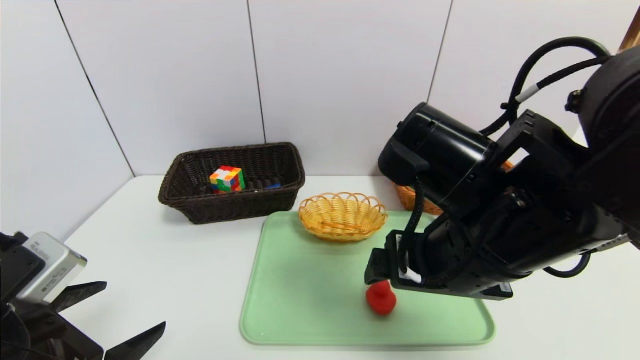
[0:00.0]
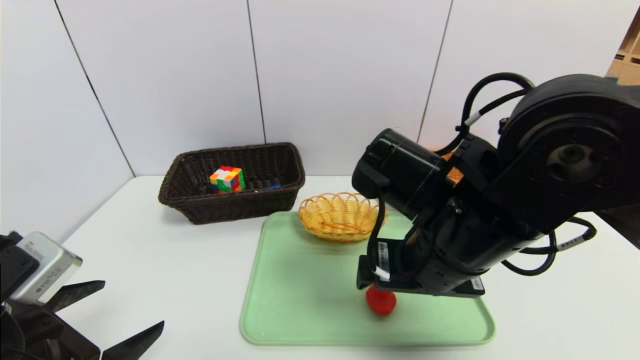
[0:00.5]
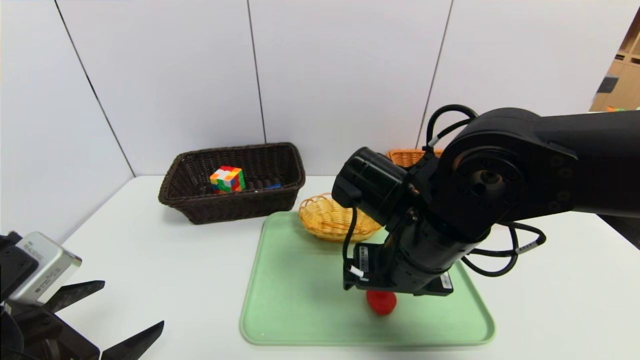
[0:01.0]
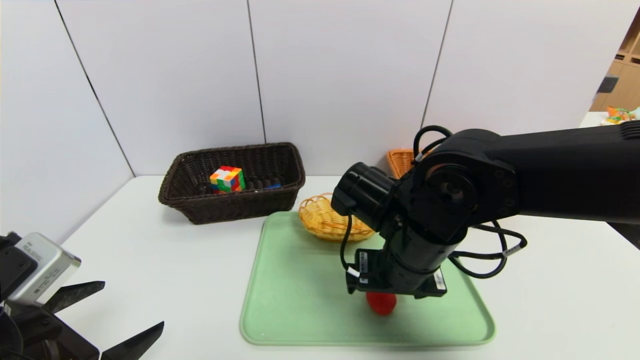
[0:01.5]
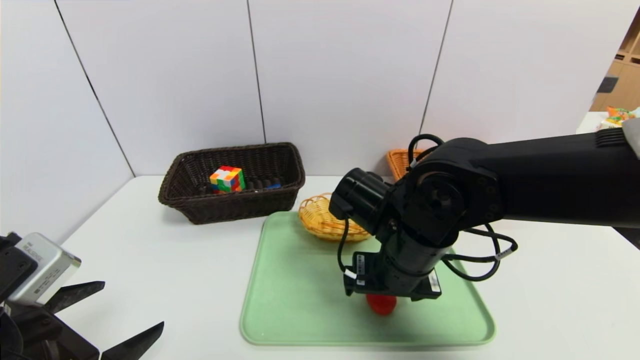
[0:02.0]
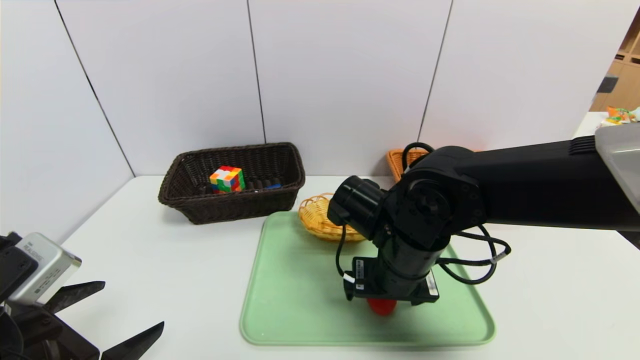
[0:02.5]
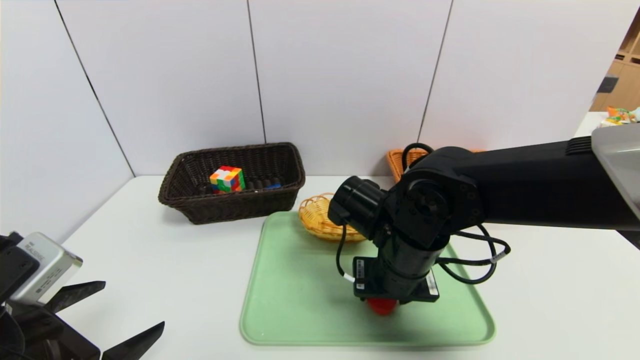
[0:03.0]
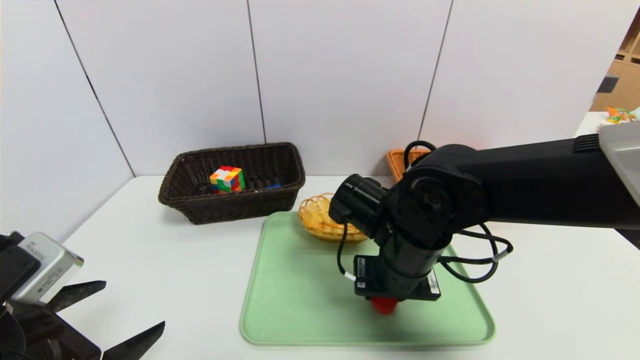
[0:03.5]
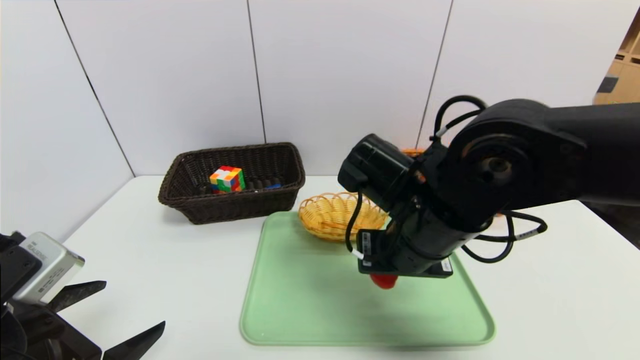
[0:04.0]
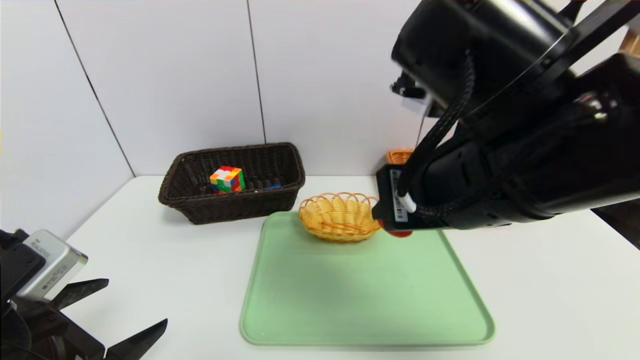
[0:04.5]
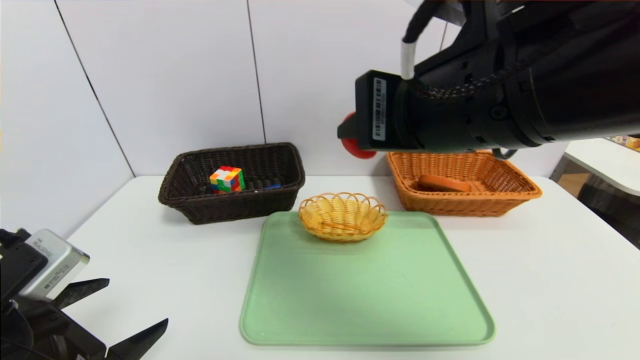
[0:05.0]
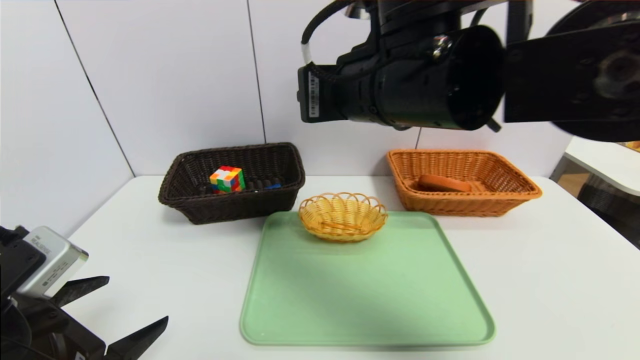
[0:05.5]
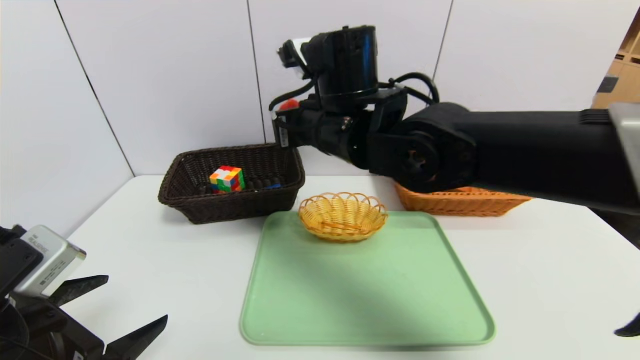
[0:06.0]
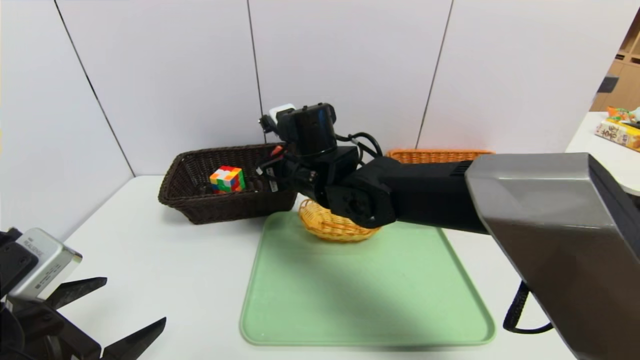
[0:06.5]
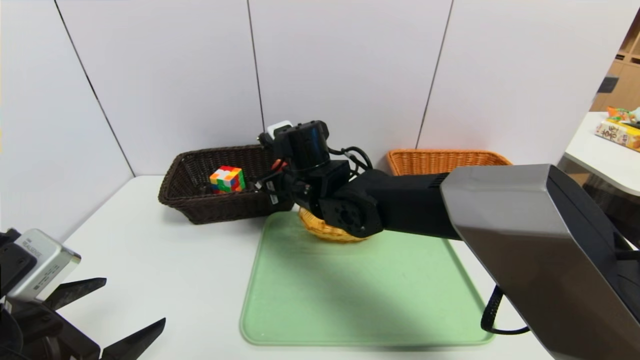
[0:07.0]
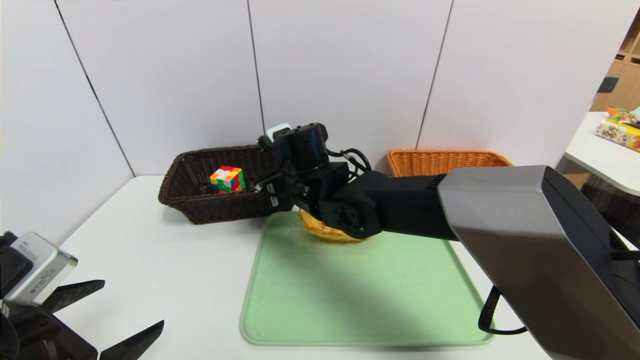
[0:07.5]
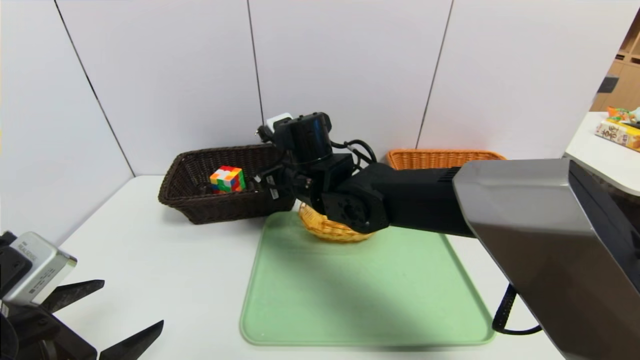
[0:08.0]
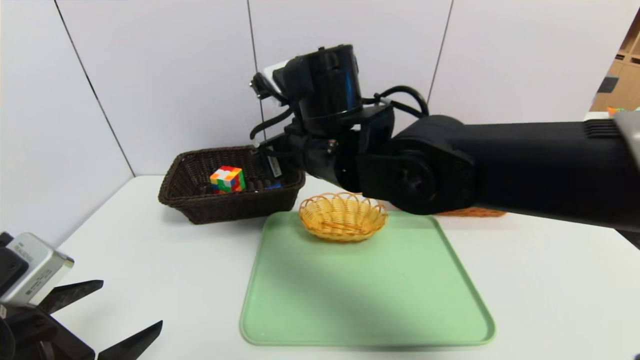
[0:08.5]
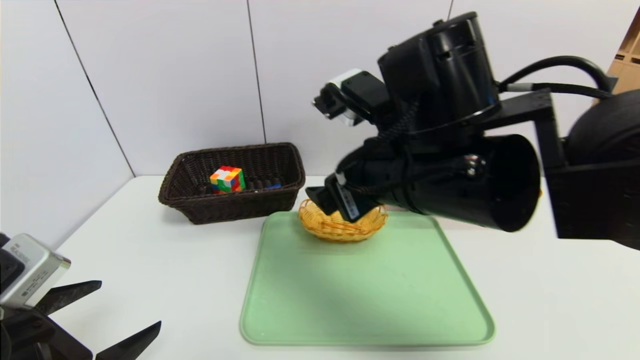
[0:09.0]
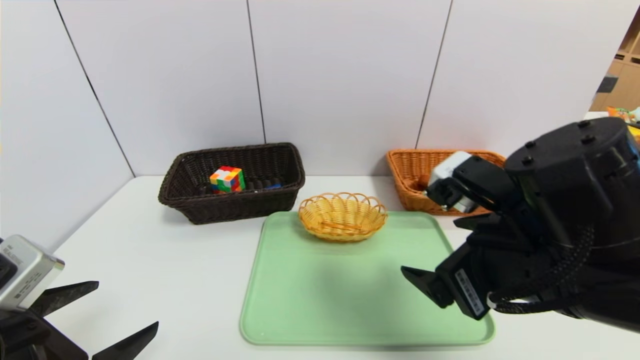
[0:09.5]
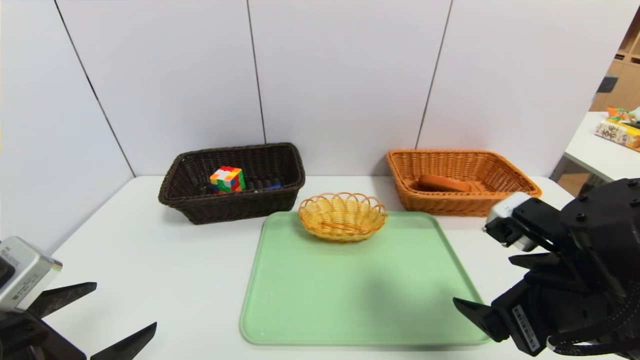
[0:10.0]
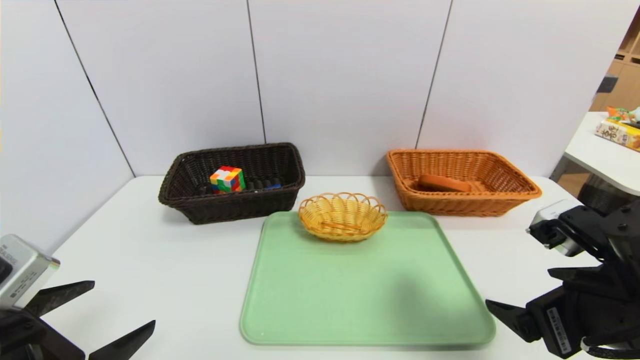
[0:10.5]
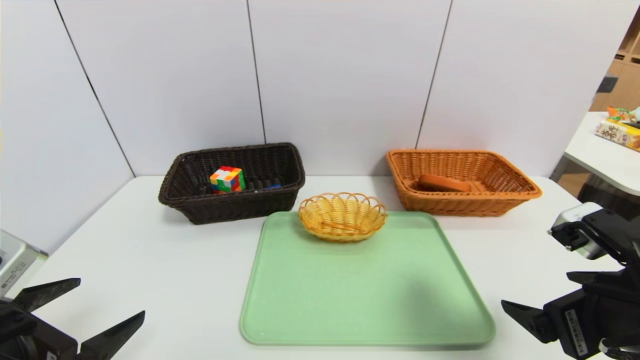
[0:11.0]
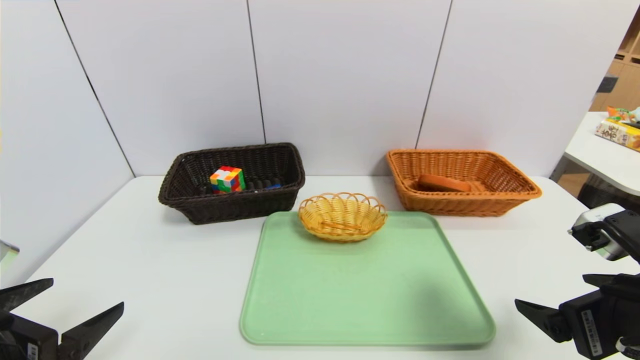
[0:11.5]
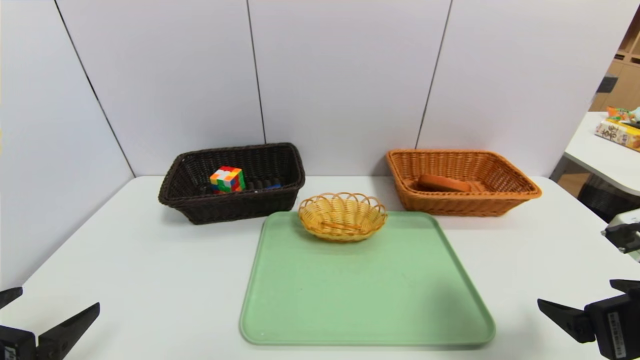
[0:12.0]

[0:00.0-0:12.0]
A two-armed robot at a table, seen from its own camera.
Task of the whole recording: place the food in the right basket with the right gripper, and place the non food items in the left basket with the left gripper.
0:00.0 to 0:02.0: The right gripper travels downward and forward by about 10 cm.
0:02.0 to 0:04.0: The right gripper is displaced upward by approximately 5 cm, and closes.
0:04.0 to 0:06.0: The right gripper moves forward, to the left and upward, about 15 cm.
0:06.0 to 0:08.0: The right gripper shifts approximately 10 cm downward, and opens up.
0:08.0 to 0:10.0: The right gripper shifts roughly 30 cm to the right and backward.
0:10.0 to 0:12.0: The right gripper is displaced to the right by roughly 10 cm.

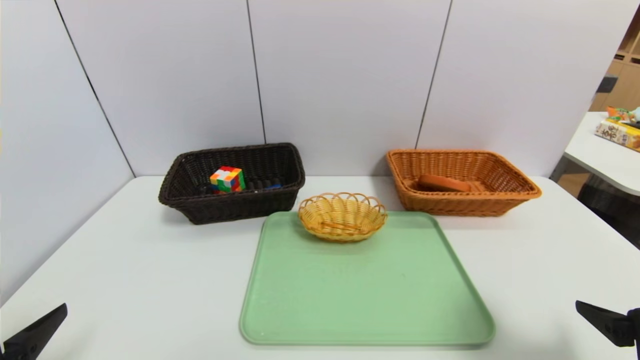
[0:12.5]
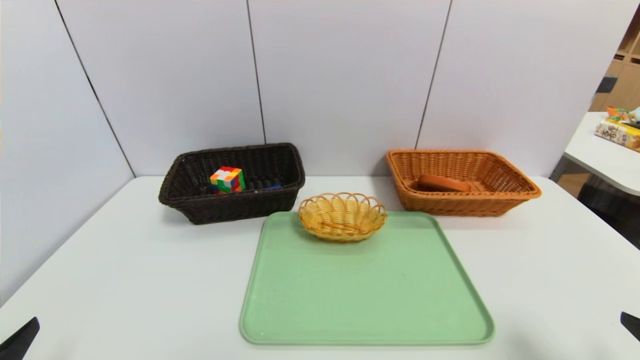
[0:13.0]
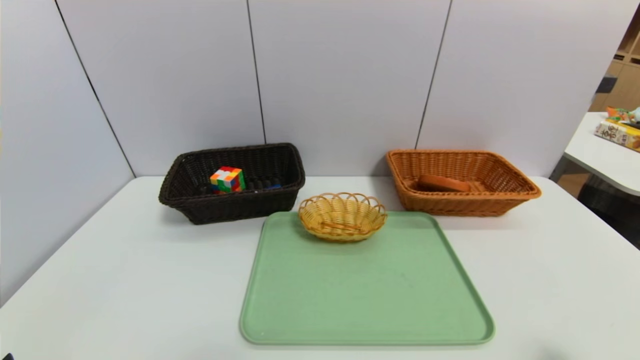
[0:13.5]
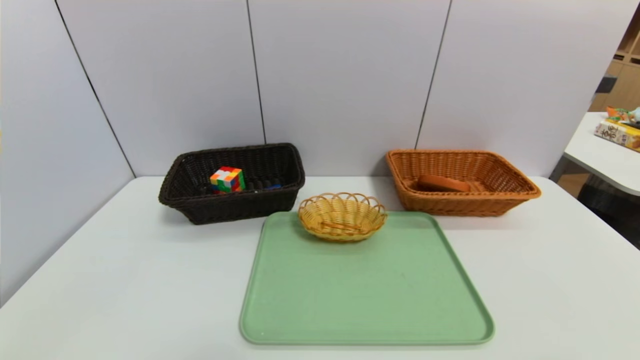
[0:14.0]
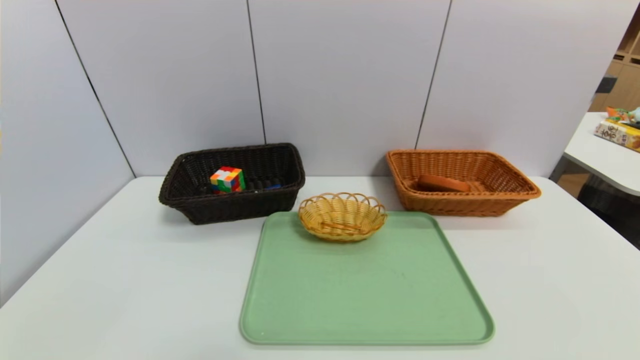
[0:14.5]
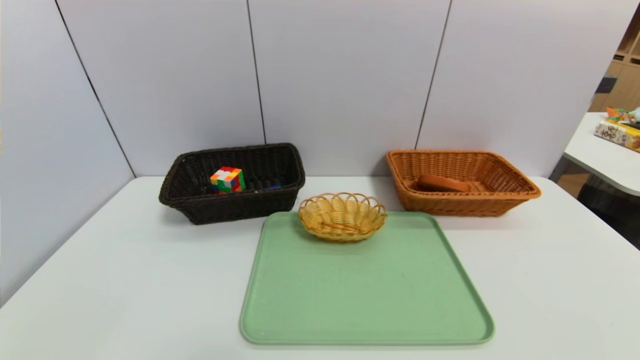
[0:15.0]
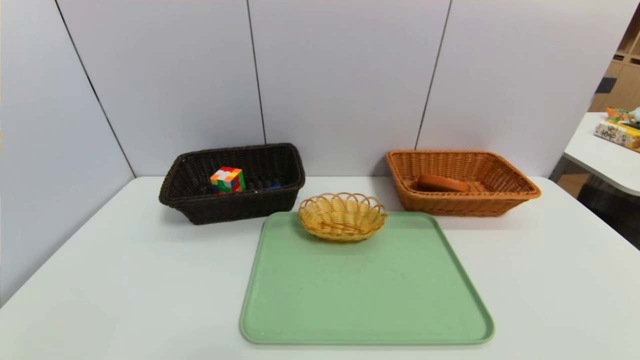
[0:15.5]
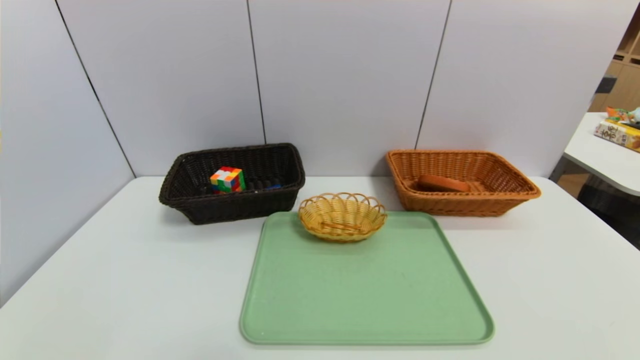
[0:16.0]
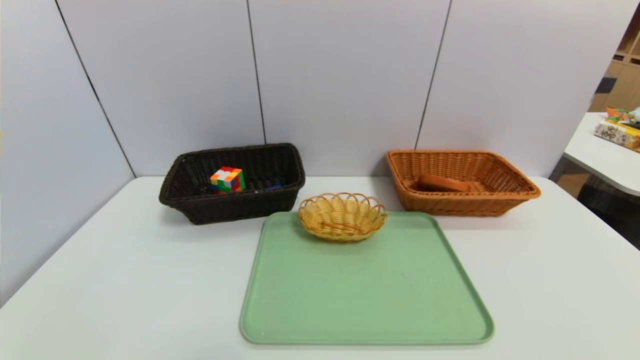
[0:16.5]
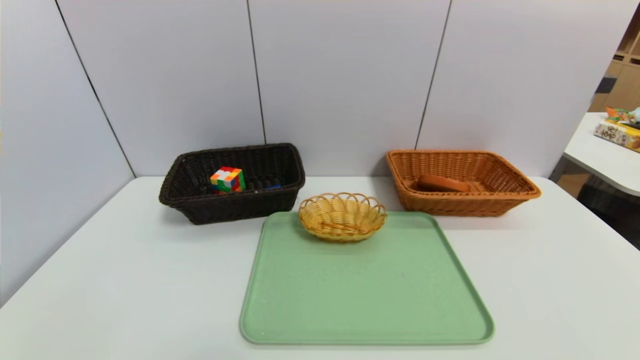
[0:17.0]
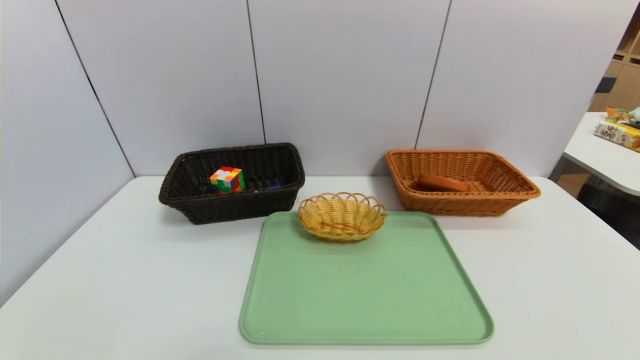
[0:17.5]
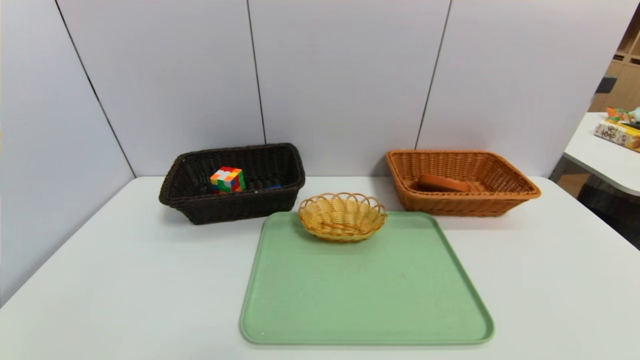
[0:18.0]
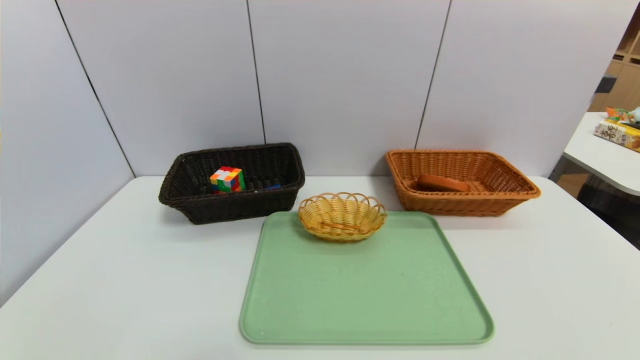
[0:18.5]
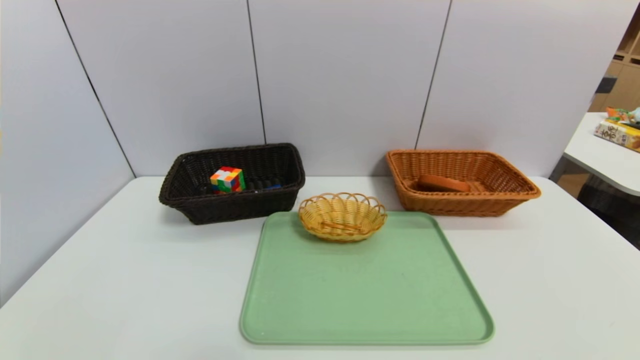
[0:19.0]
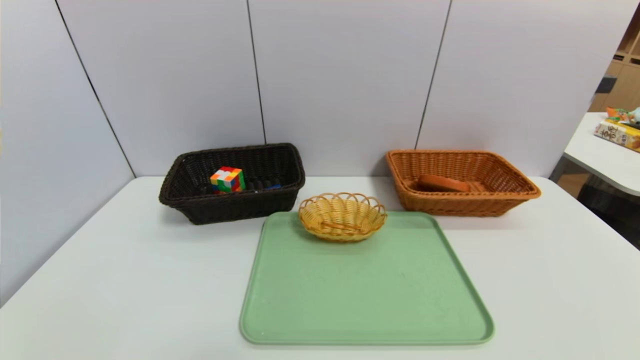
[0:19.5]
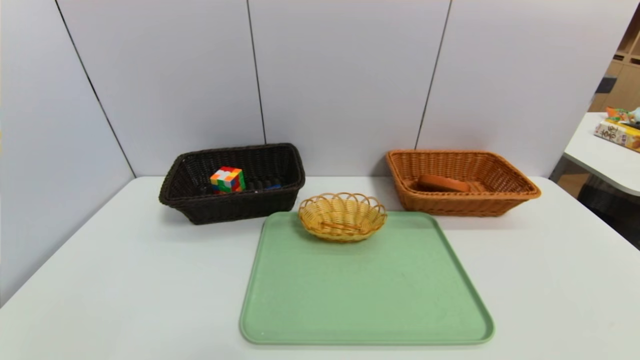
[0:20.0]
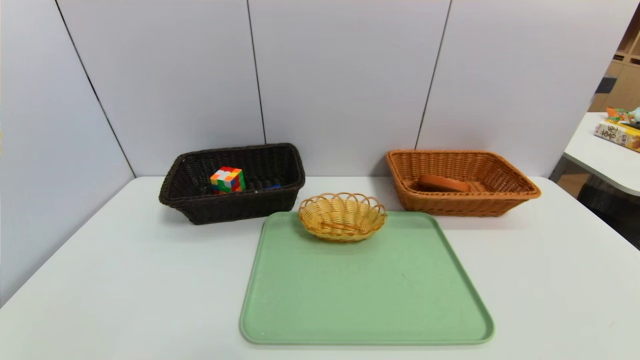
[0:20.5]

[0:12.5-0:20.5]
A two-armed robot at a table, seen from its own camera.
Task of the whole recording: place the food in the right basket with the right gripper, and place the non food items in the left basket with the left gripper.
0:12.5 to 0:14.5: The two grippers go about 10 cm backward.
0:18.5 to 0:20.5: The two grippers keep their place.
